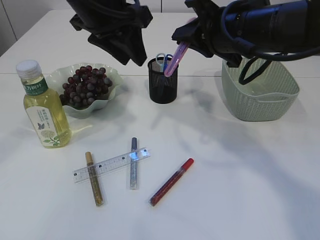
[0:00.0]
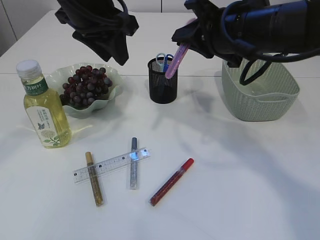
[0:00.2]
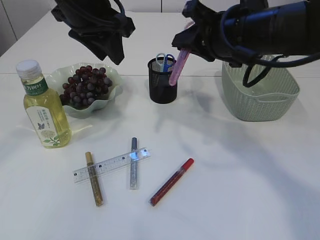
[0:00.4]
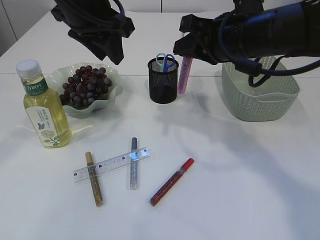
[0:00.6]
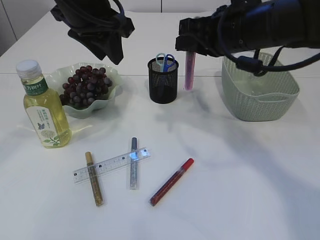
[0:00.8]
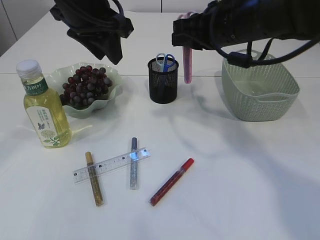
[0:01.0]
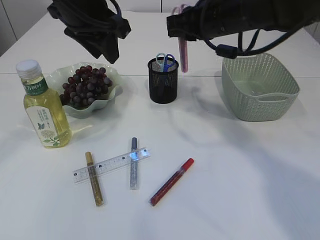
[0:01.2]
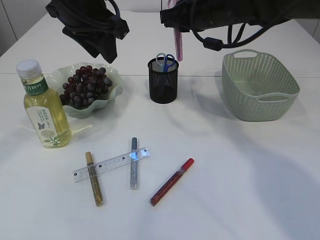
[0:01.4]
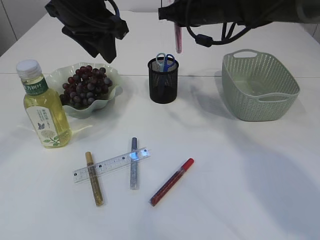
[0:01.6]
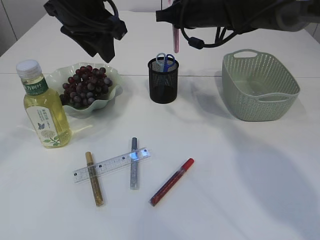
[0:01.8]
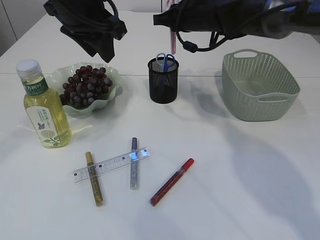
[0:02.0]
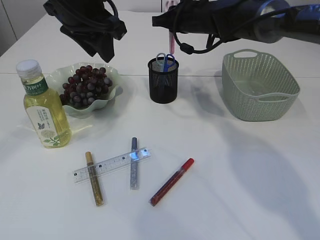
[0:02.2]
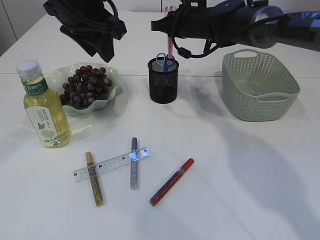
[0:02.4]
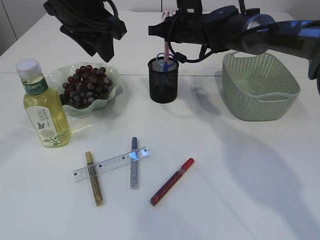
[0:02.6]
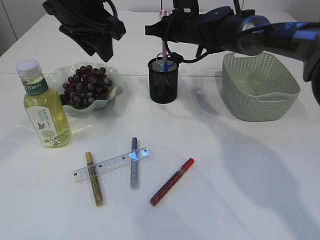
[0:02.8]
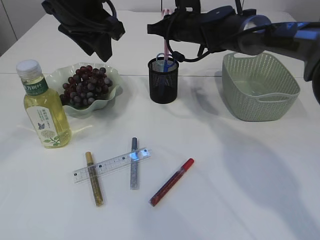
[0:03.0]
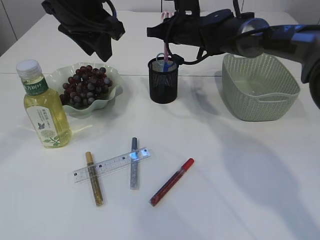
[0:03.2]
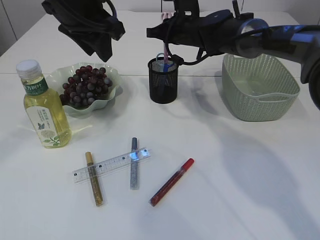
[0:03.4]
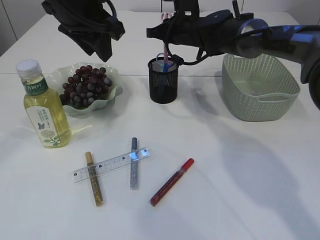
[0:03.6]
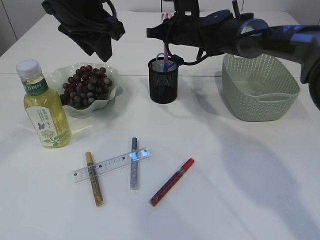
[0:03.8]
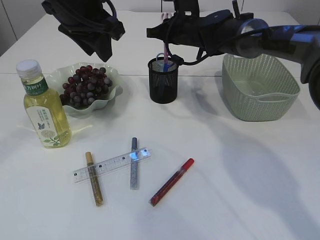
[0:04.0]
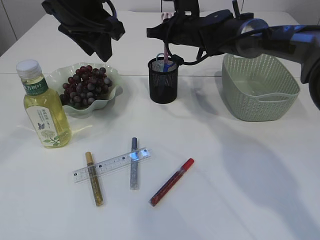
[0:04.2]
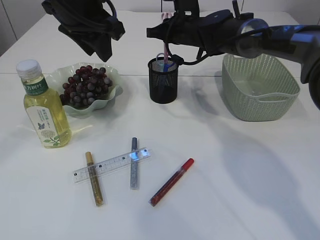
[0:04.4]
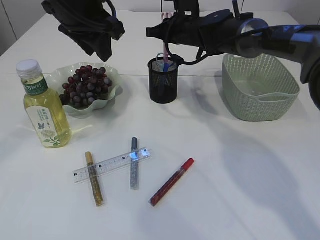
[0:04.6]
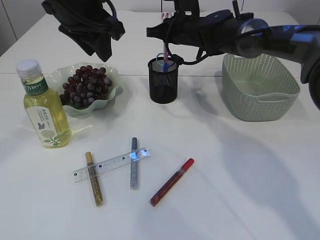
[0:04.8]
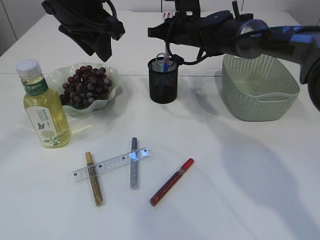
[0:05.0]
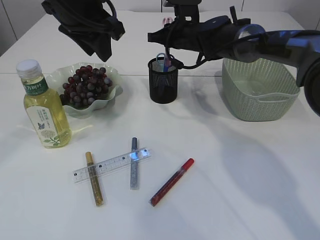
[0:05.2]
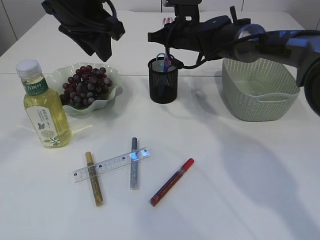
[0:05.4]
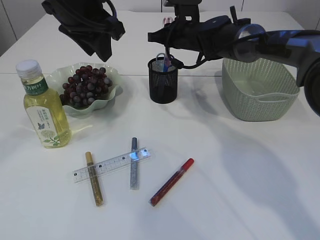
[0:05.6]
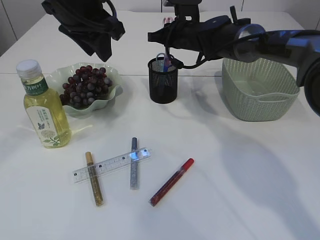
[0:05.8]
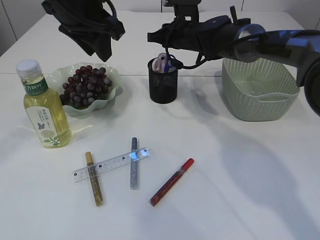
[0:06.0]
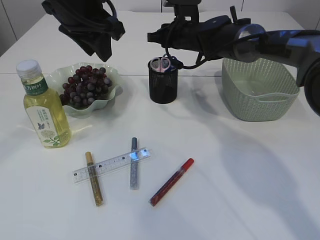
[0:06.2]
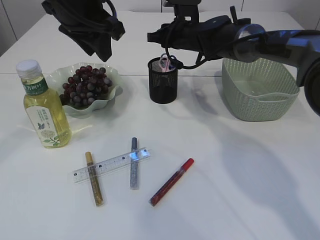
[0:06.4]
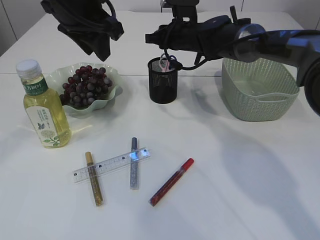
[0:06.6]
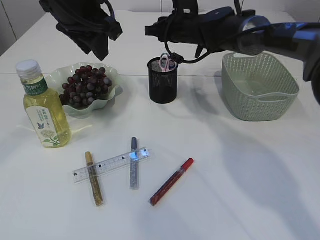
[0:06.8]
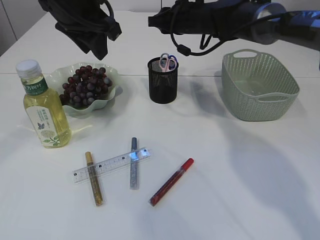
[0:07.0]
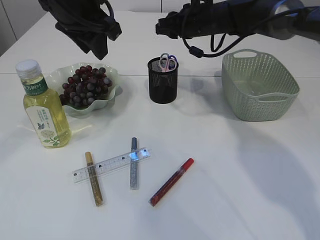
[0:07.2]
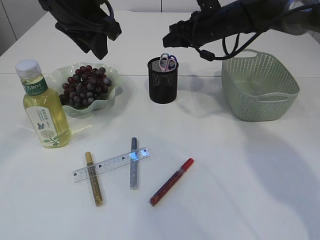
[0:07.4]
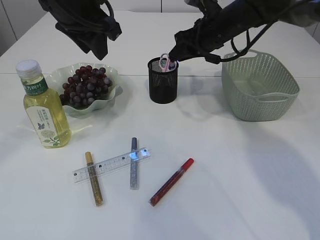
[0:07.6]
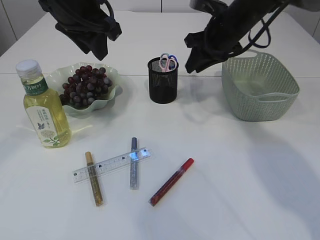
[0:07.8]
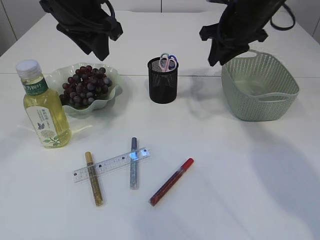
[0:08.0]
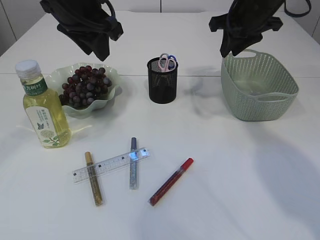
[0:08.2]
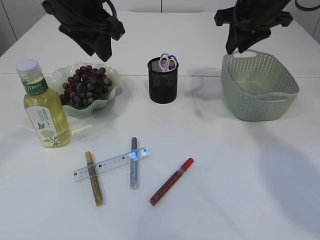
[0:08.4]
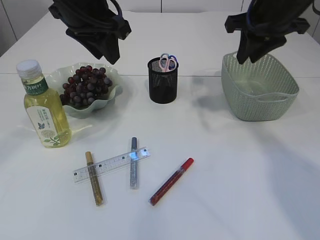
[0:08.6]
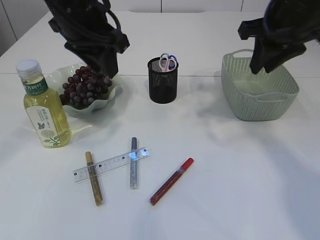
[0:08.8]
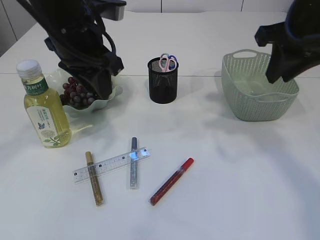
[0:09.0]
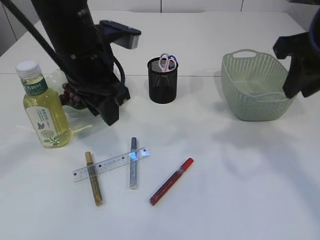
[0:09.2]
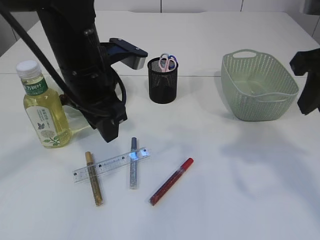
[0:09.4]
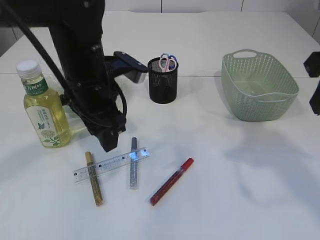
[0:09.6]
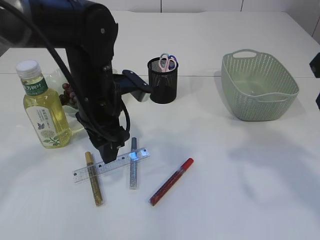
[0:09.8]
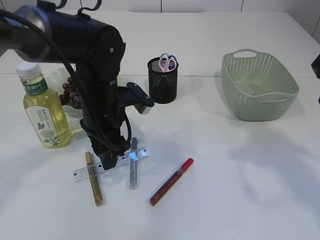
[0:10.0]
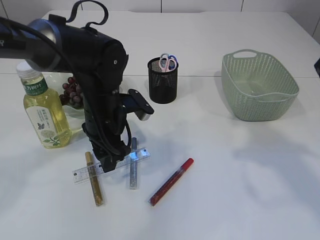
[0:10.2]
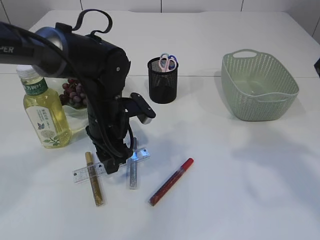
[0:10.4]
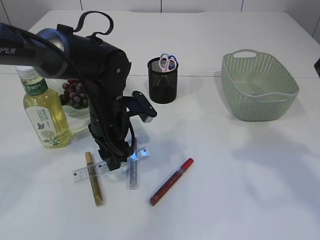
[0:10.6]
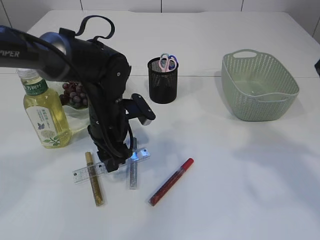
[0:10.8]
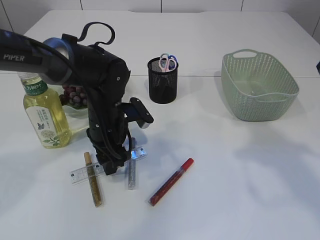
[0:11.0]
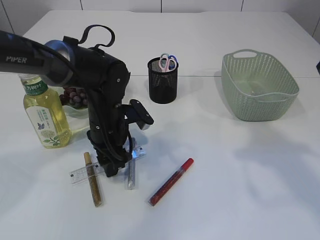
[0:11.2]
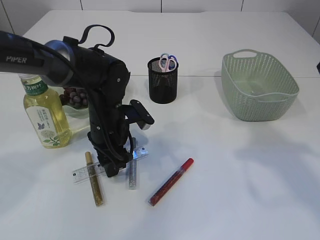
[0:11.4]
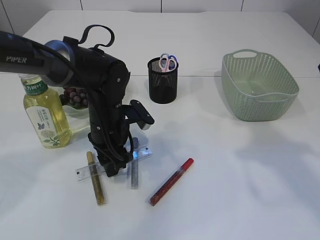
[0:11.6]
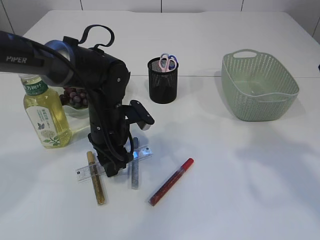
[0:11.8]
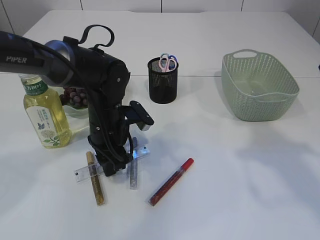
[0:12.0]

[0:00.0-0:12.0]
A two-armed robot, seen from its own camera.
Step, 0:00.6 to 0:06.8: Place the pink scissors into the pen holder.
0:00.0 to 0:01.6: The right gripper travels forward by roughly 10 cm.
0:01.6 to 0:03.0: The right gripper moves forward and downward, about 10 cm.
0:03.0 to 0:04.4: Both grippers stay about where they are.
0:04.4 to 0:06.0: Both grippers stay put.
0:06.0 to 0:07.6: The right gripper shifts about 5 cm to the right.
0:07.6 to 0:09.0: The right gripper travels backward, upward and to the right by approximately 20 cm.
0:09.0 to 0:10.4: The left gripper is displaced downward by some 15 cm, and opens. Meanwhile the right gripper is displaced backward by about 10 cm.
0:10.4 to 0:12.0: The grippers make only small movements.

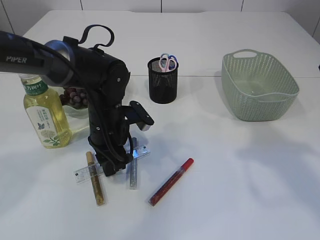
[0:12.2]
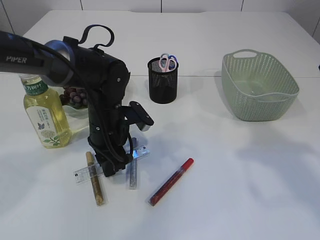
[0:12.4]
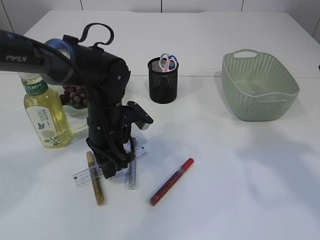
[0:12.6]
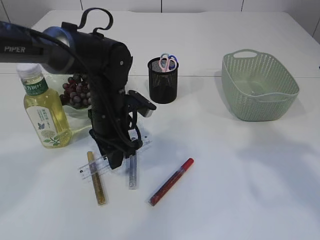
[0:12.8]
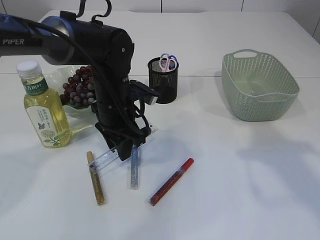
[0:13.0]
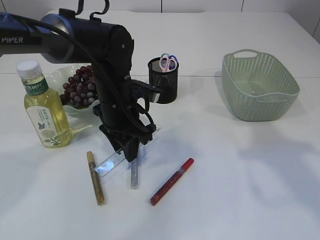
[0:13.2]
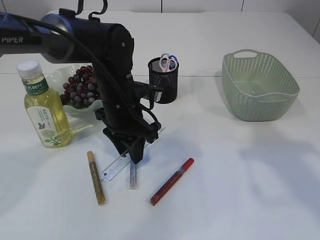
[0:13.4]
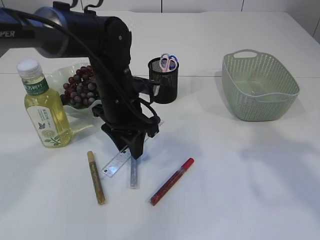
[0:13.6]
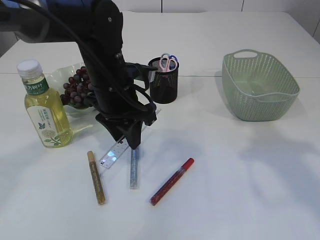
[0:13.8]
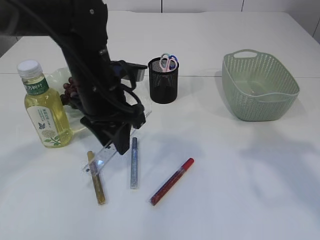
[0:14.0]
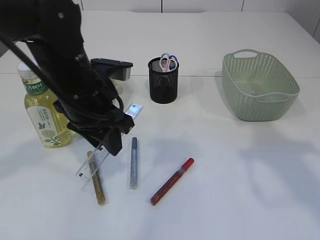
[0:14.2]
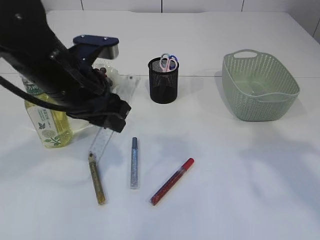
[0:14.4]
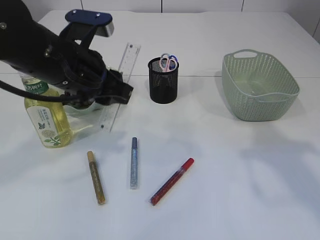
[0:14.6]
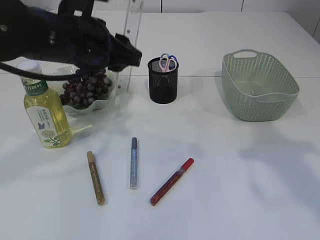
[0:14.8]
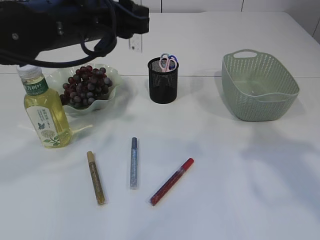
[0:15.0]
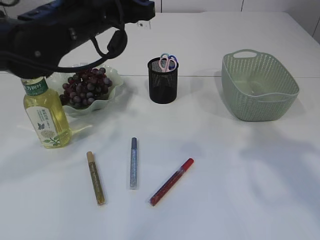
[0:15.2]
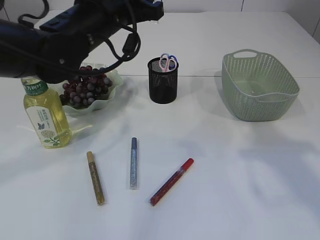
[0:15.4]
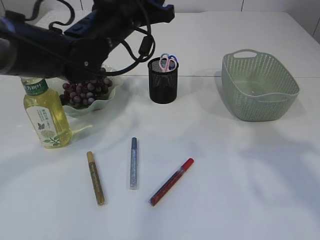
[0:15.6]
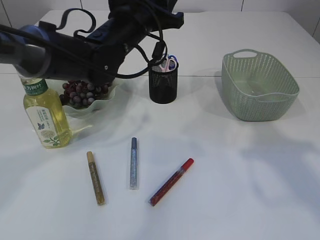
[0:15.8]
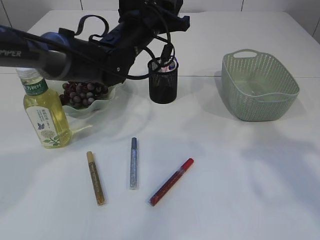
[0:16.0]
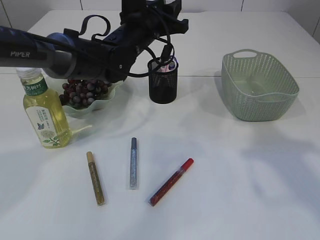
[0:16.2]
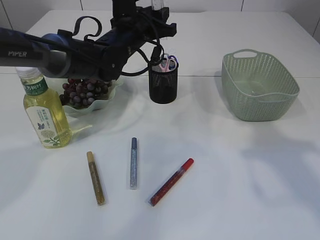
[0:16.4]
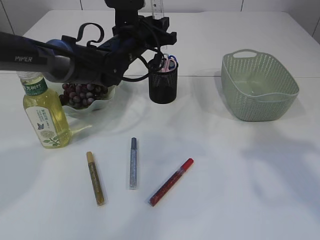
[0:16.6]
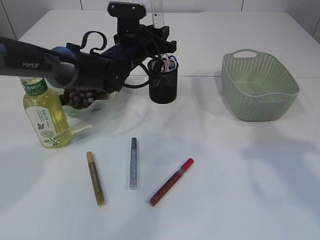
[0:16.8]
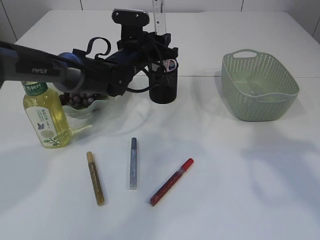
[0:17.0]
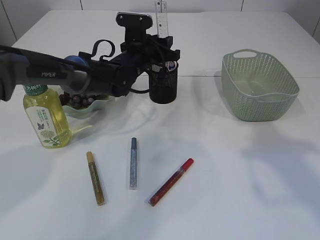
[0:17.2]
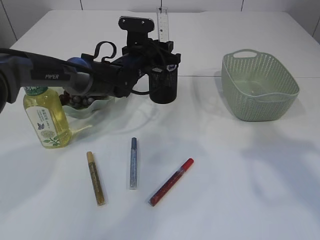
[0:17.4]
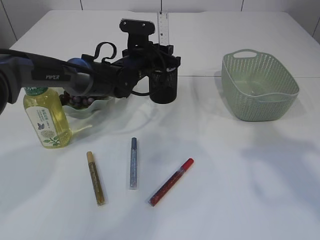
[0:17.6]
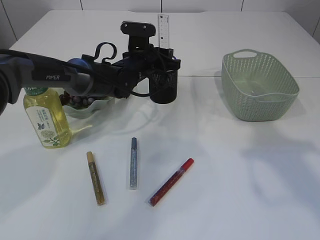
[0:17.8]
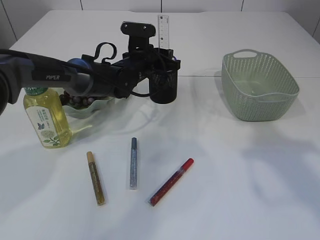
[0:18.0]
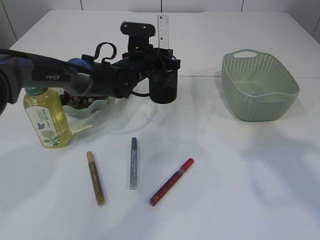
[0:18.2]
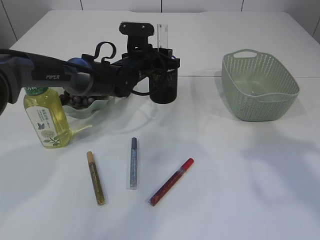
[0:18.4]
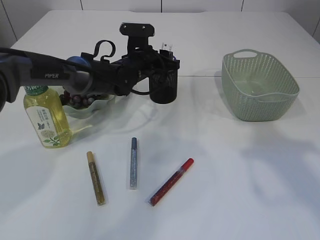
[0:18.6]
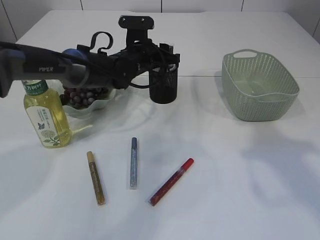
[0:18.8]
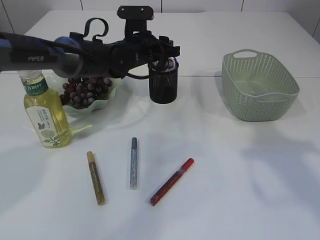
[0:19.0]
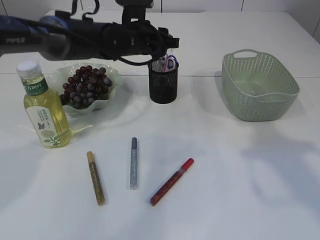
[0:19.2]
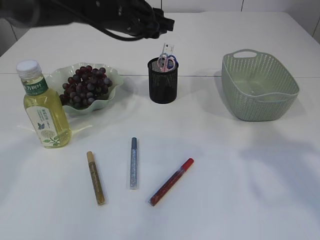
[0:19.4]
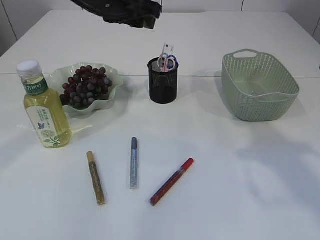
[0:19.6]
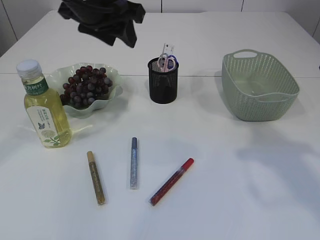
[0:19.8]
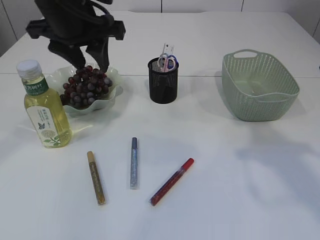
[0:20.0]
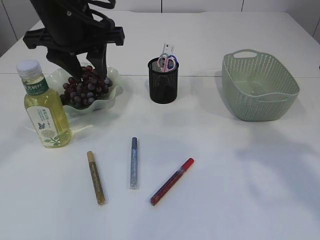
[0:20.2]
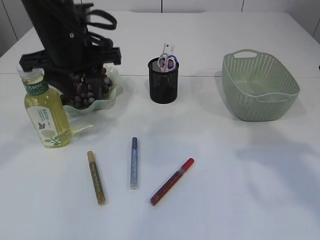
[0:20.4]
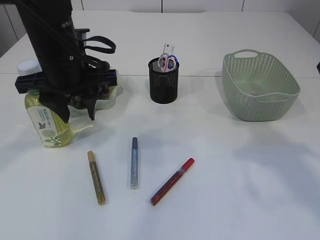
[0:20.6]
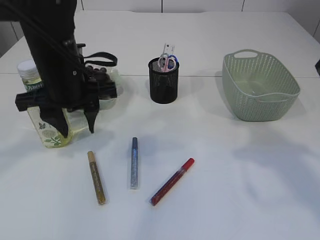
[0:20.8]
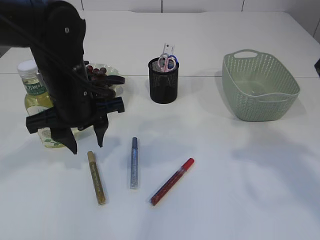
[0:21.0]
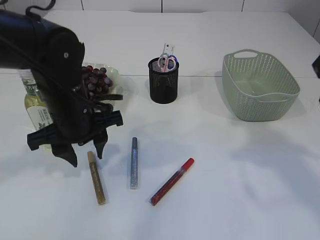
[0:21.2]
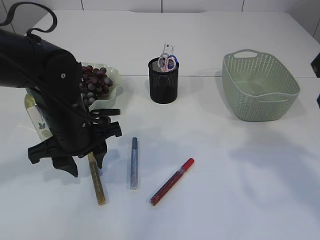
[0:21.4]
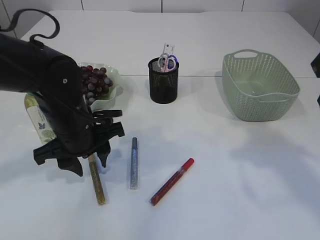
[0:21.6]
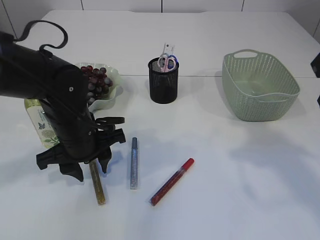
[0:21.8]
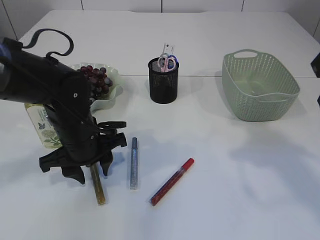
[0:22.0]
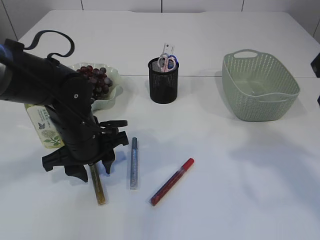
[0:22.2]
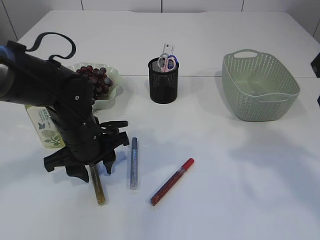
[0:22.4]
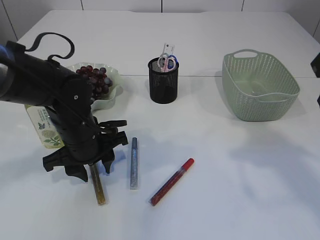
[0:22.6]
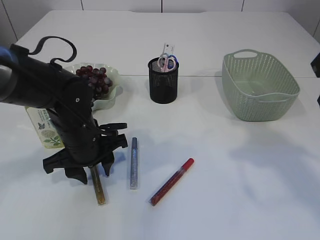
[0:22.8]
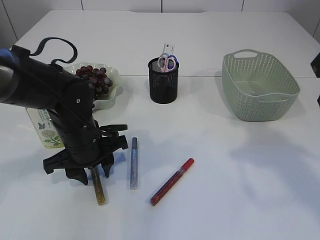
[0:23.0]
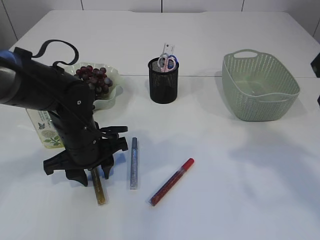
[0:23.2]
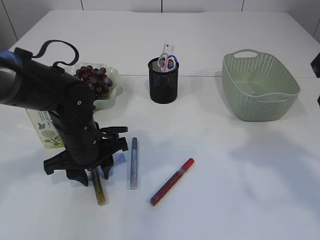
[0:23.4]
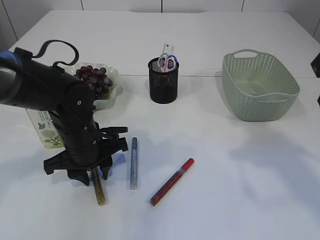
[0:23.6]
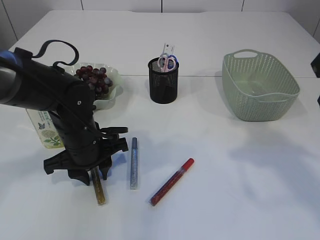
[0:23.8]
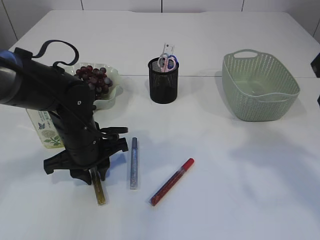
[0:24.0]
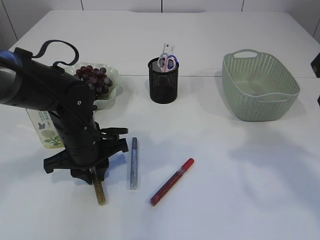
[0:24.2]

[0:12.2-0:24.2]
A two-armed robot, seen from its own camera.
Step, 0:12.2 to 0:14.2: pick up the ruler.
Step, 0:14.4 to 0:19.2: Place the ruler into the pen holder.
0:12.2 to 0:13.8: The left gripper is displaced upward by roughly 10 cm.
0:13.8 to 0:15.2: The left gripper goes about 10 cm upward.
0:15.2 to 0:16.6: The left gripper goes some 15 cm forward and downward.
0:16.6 to 0:18.2: The left gripper goes approximately 5 cm downward.
0:18.2 to 0:19.8: The left gripper heads upward and backward, covering some 20 cm.
0:19.8 to 0:21.2: The left gripper heads downward and backward, covering approximately 15 cm.
0:21.2 to 0:22.6: The left gripper travels downward by approximately 5 cm.
0:22.6 to 0:24.2: Neither gripper changes place.
